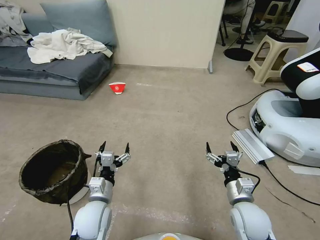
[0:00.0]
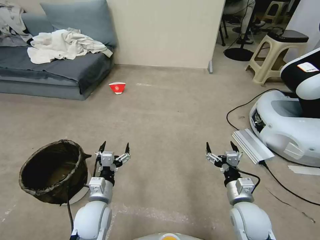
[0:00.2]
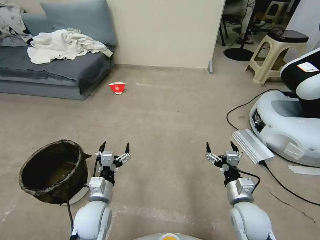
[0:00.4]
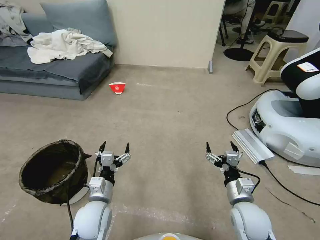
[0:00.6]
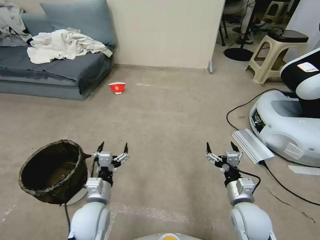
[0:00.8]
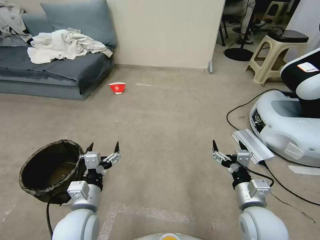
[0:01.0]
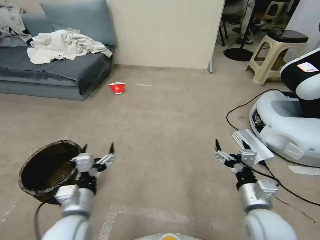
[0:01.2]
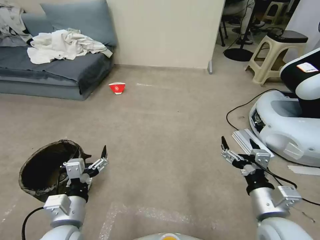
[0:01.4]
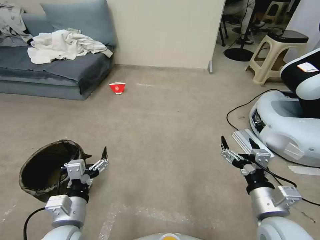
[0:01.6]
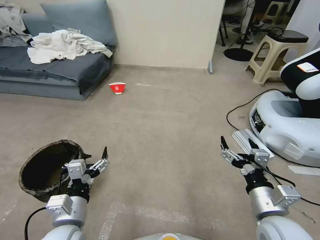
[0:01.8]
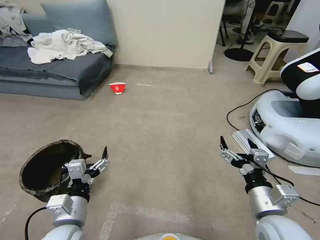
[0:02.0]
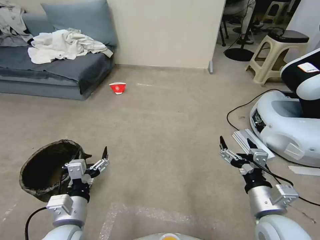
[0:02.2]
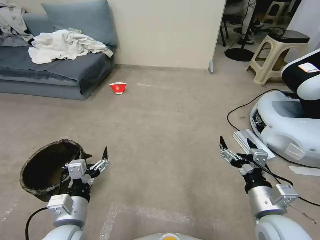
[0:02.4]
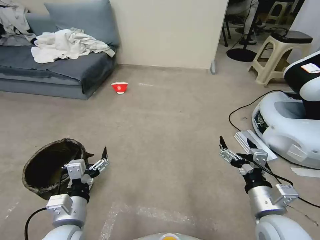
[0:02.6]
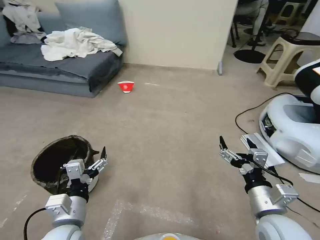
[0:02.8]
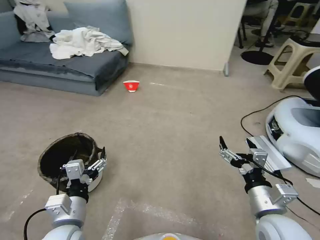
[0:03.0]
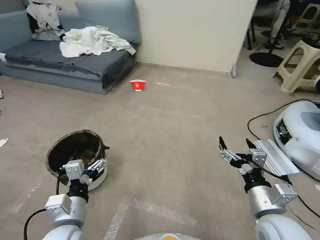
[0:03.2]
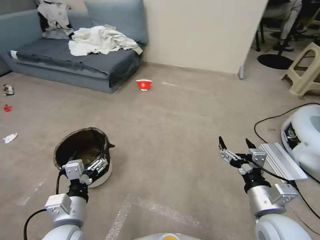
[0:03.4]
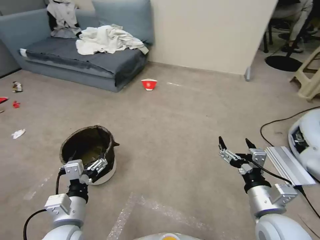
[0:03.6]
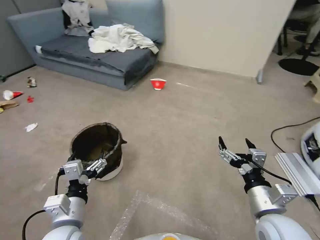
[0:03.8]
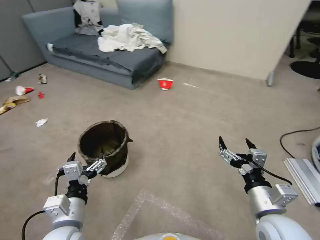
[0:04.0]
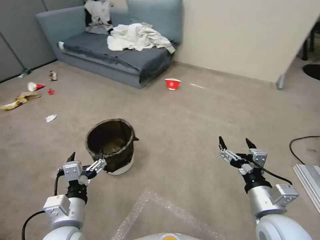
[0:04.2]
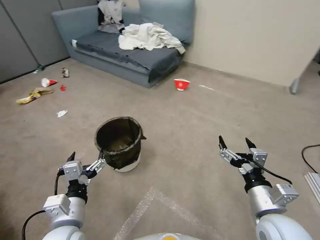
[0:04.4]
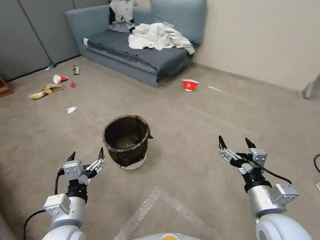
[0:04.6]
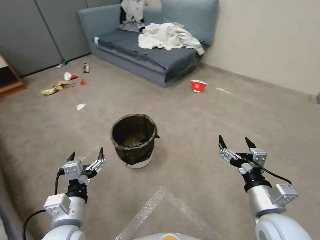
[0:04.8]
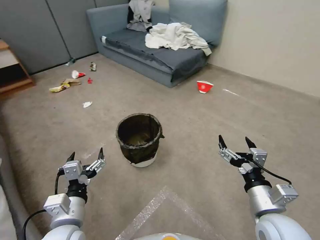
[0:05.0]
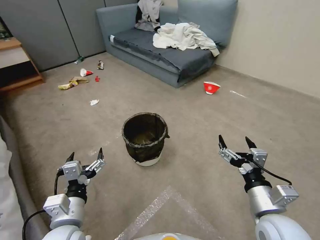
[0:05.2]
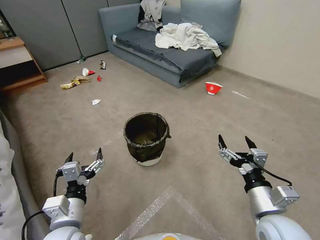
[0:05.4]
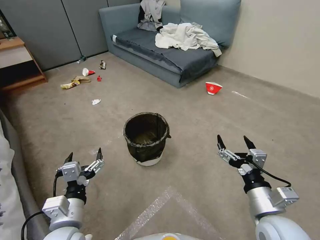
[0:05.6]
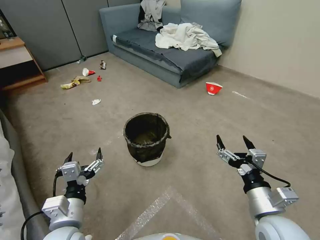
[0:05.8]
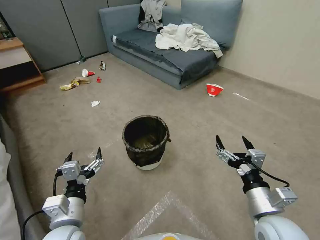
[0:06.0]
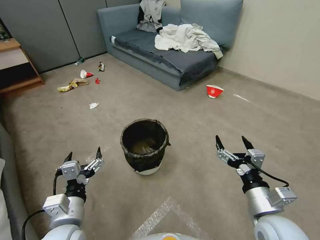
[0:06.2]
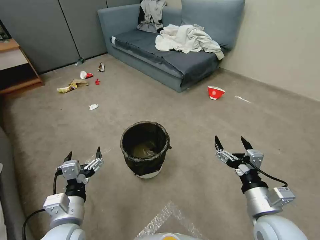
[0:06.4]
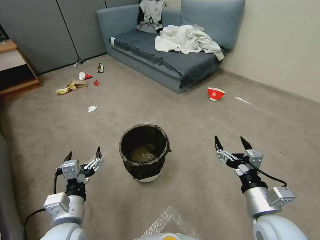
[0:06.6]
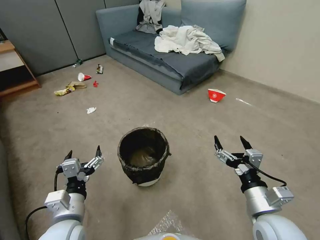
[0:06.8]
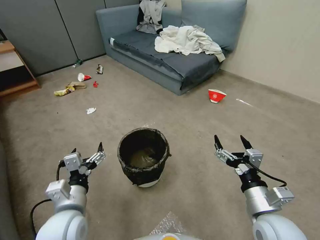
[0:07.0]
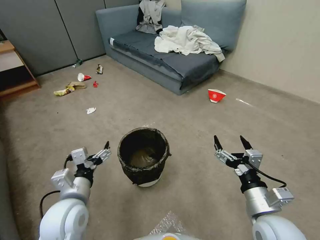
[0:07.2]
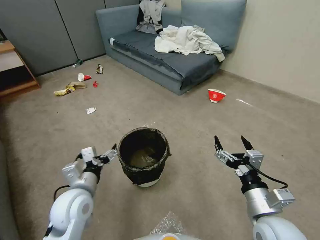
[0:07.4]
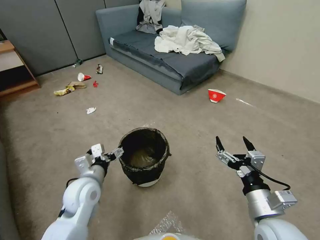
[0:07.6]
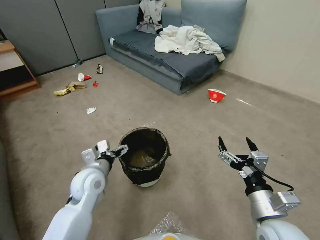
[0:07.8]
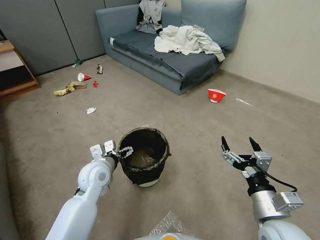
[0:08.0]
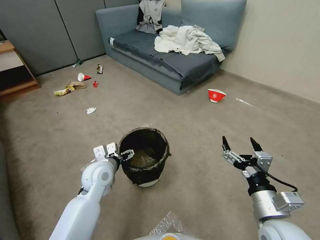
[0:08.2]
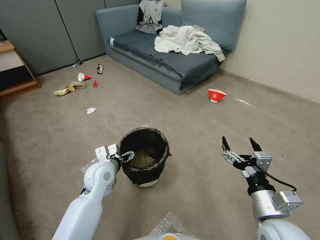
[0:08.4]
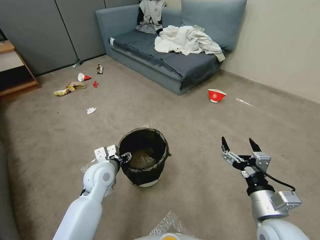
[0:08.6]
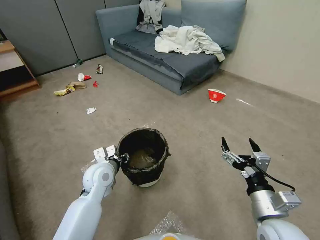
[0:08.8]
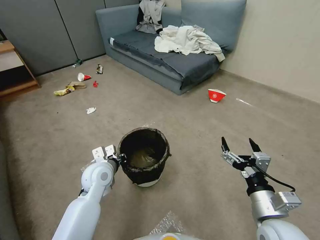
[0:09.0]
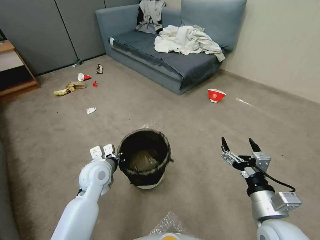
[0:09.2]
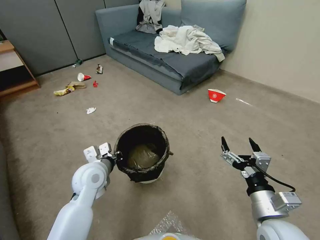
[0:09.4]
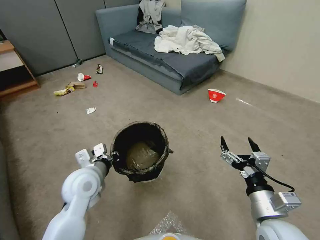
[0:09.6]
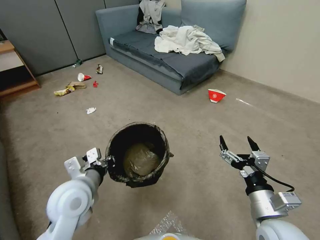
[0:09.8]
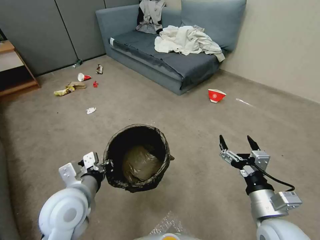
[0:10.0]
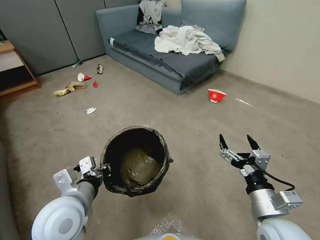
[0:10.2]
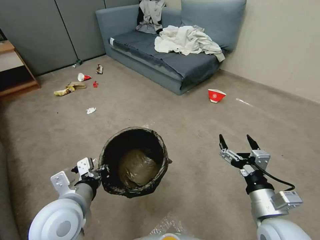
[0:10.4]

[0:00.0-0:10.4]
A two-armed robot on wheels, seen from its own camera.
Task of the whole recording: Pick up the trash can from the floor.
0:06.0 to 0:07.4: The left gripper heads forward, covering approximately 10 cm.
0:07.4 to 0:09.0: The left gripper travels forward by approximately 10 cm, and closes its fingers.
0:09.0 to 0:10.4: The left gripper heads backward and upward, covering some 15 cm.

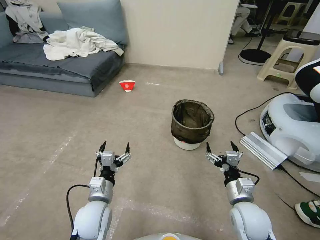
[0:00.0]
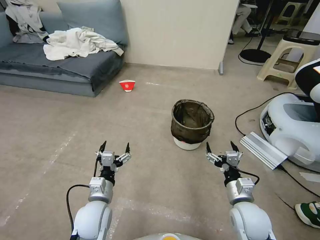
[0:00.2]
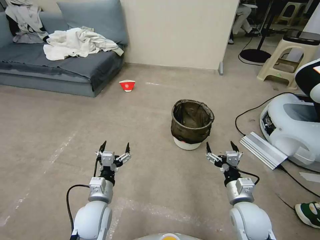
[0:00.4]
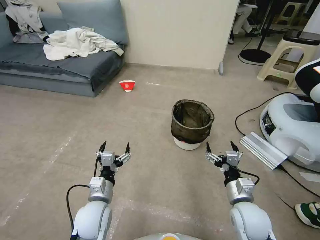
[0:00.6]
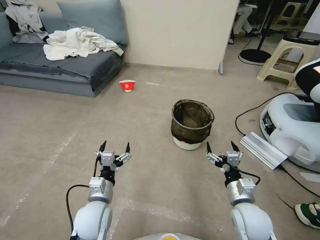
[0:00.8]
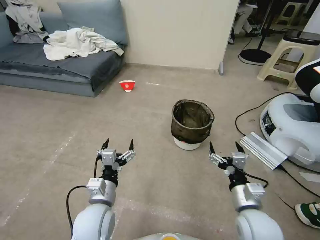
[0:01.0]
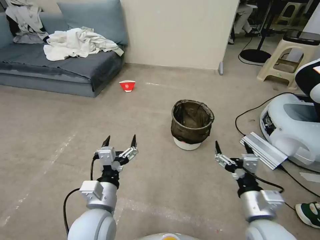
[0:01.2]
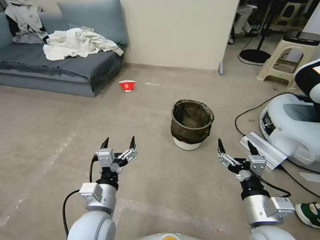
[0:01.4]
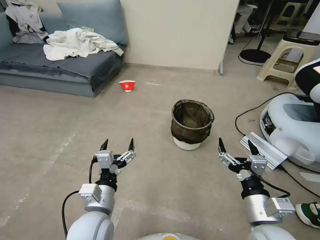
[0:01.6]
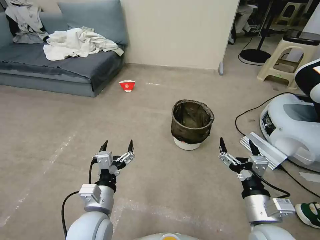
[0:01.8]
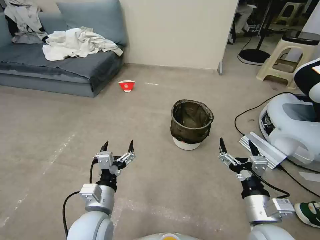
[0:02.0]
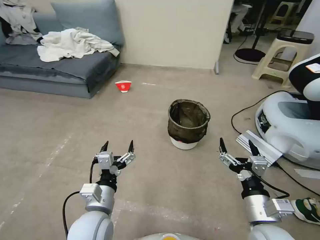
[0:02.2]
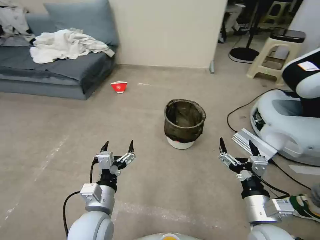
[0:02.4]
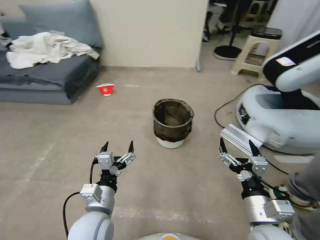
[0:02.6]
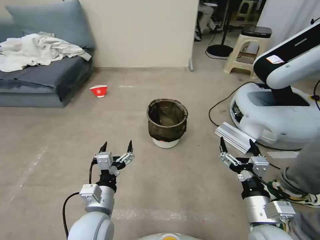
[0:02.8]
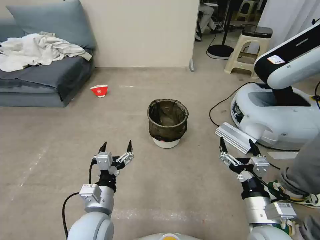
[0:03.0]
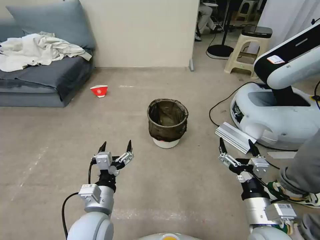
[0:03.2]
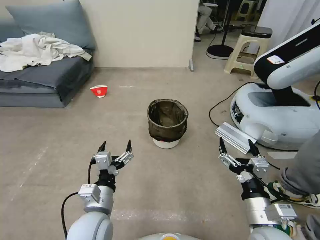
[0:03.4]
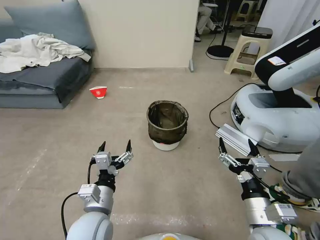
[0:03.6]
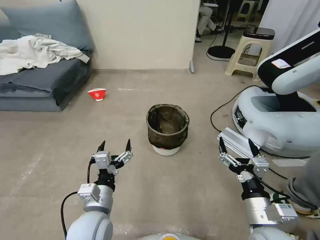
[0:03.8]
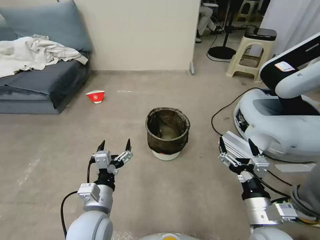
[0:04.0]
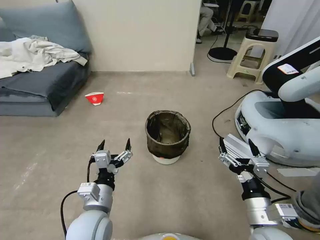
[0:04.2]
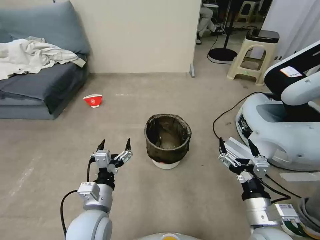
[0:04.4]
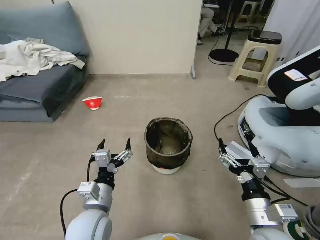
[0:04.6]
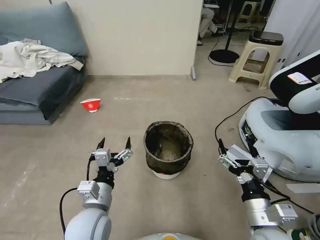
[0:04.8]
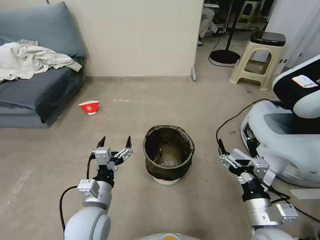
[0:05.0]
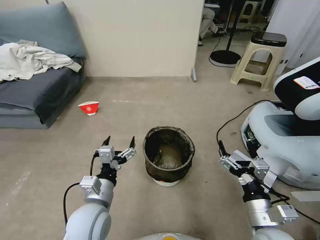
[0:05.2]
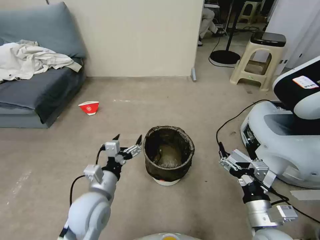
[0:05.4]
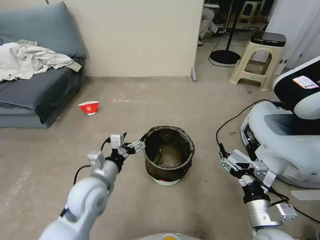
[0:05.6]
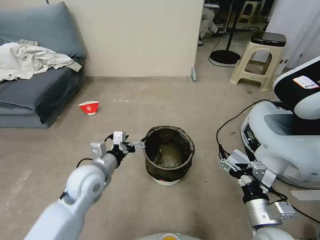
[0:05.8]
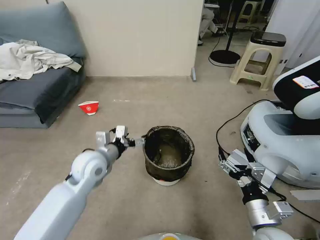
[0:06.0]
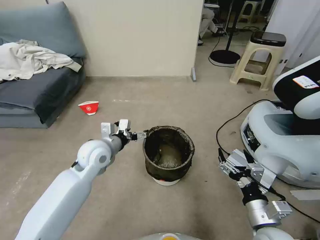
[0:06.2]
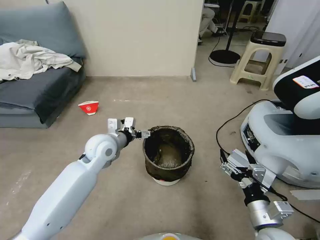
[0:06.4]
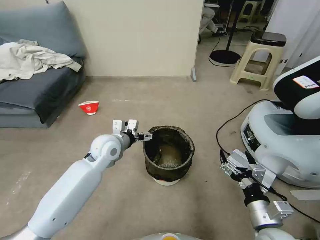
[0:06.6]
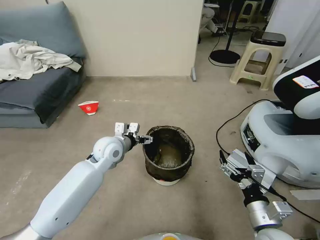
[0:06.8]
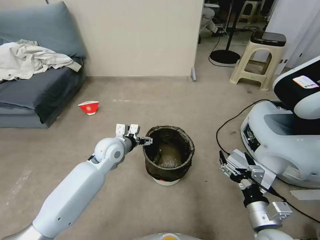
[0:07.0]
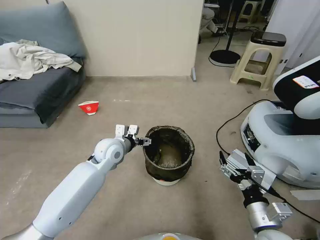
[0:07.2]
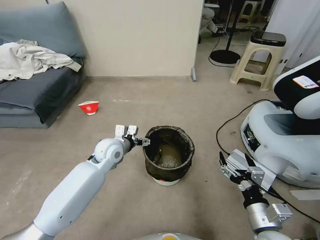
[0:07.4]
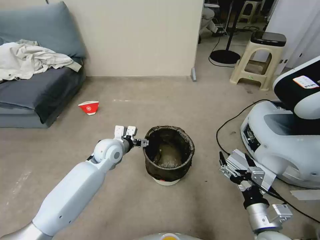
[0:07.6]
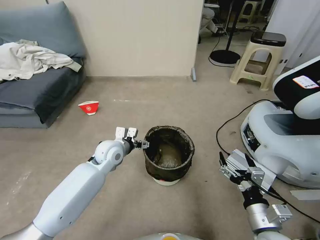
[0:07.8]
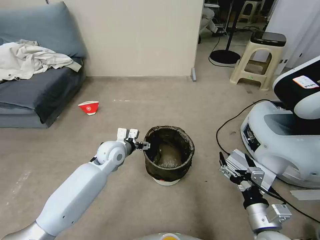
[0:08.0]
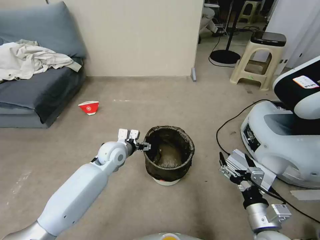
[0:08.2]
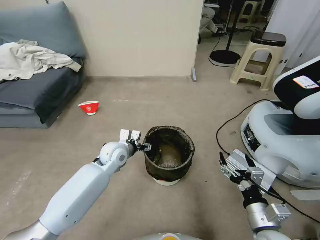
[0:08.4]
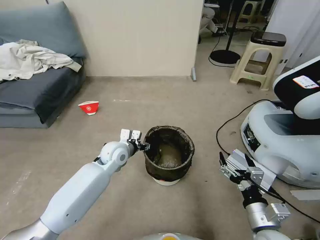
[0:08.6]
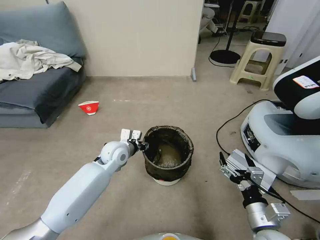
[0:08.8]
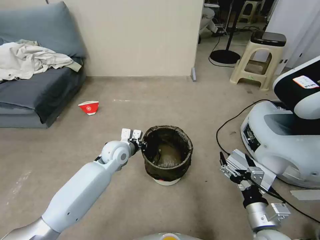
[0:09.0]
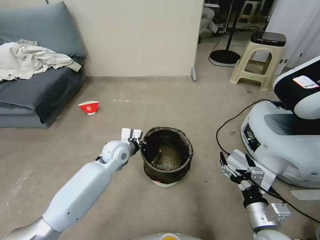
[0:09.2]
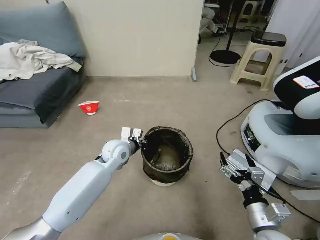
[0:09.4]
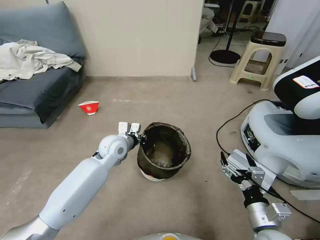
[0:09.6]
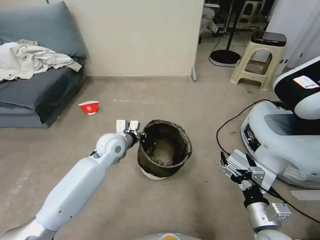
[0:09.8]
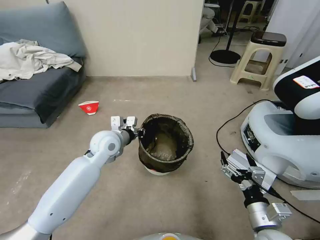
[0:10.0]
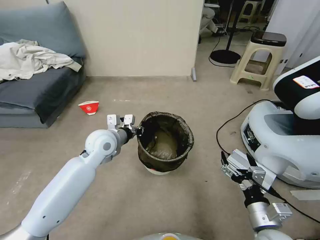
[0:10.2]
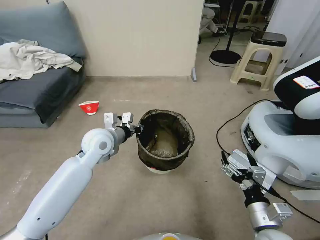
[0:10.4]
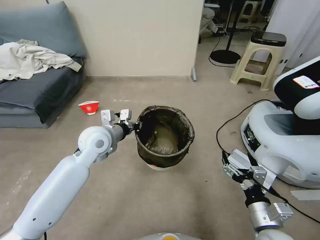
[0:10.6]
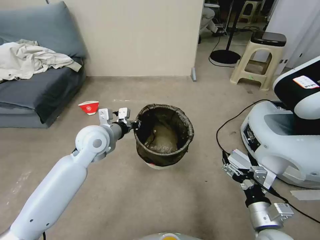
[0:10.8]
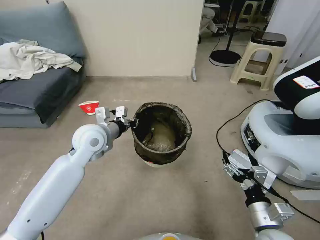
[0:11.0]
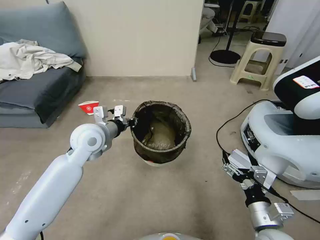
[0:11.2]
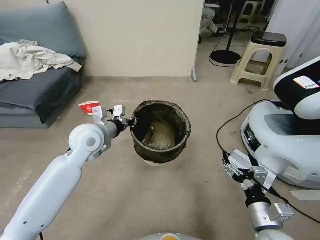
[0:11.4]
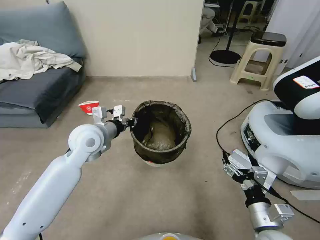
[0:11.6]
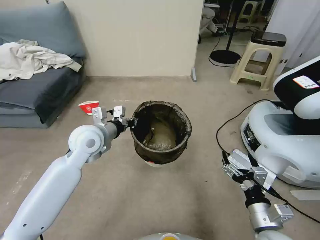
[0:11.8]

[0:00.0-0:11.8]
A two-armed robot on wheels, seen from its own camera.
Task of the whole recording: Pick up the trash can from the floor.
0:04.4 to 0:06.0: The left gripper moves forward, approximately 15 cm.
0:06.0 to 0:07.4: The left gripper moves forward, about 5 cm.
0:07.4 to 0:08.8: The left gripper closes up.
0:08.8 to 0:10.4: The left gripper heads upward, covering about 10 cm, and closes its fingers.
0:10.4 to 0:11.8: The grippers move only a little.
